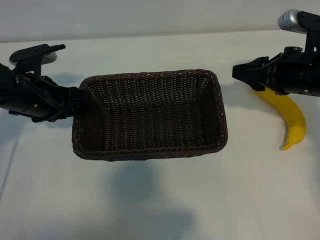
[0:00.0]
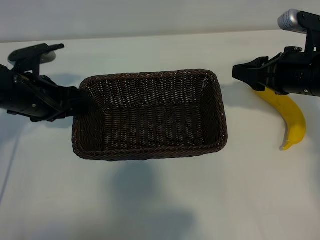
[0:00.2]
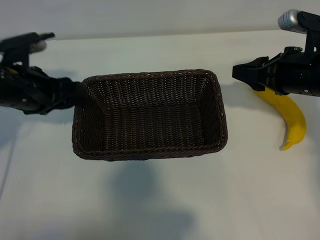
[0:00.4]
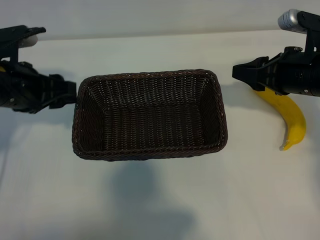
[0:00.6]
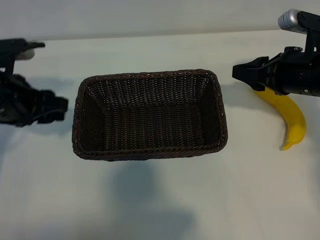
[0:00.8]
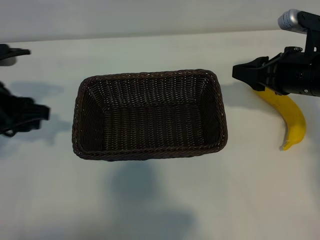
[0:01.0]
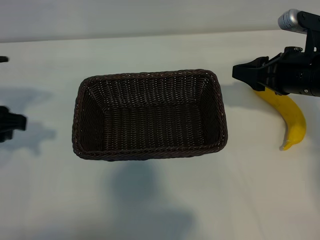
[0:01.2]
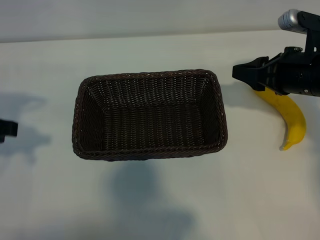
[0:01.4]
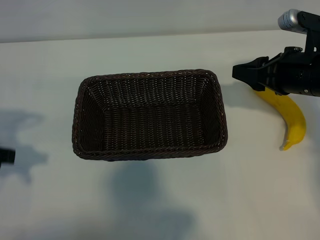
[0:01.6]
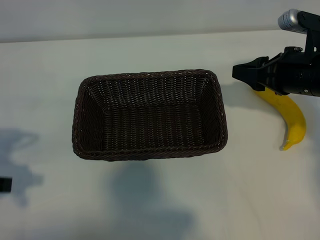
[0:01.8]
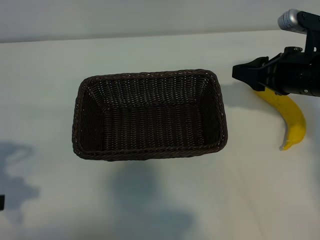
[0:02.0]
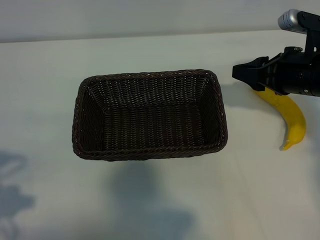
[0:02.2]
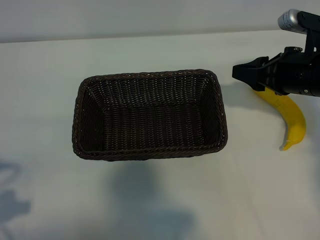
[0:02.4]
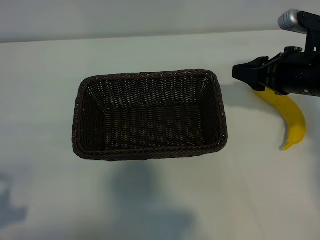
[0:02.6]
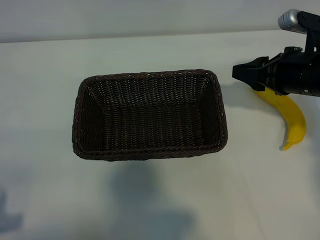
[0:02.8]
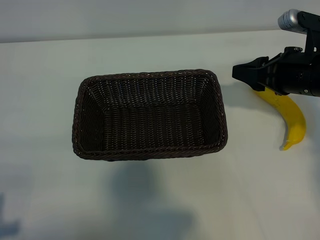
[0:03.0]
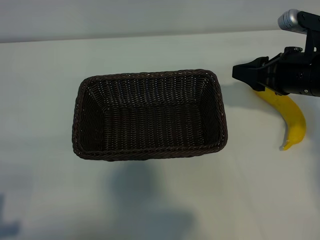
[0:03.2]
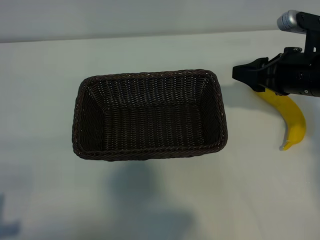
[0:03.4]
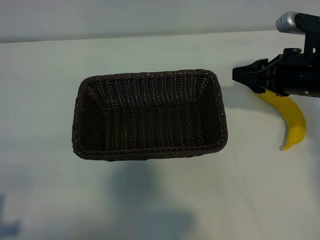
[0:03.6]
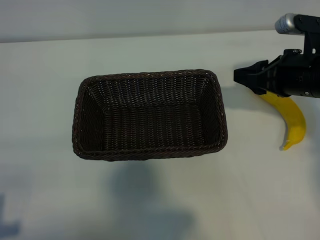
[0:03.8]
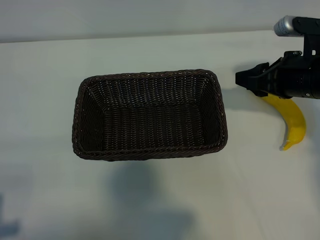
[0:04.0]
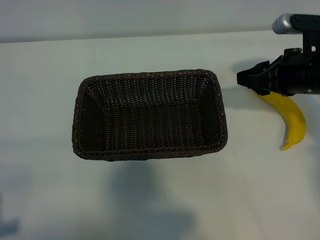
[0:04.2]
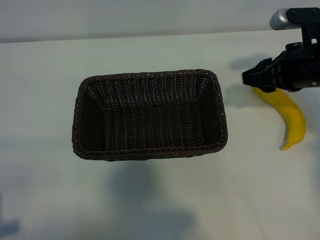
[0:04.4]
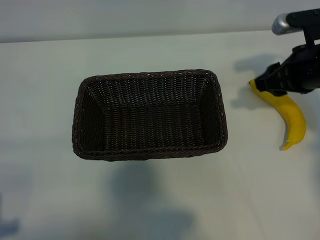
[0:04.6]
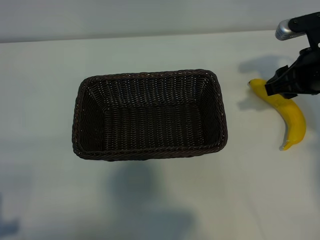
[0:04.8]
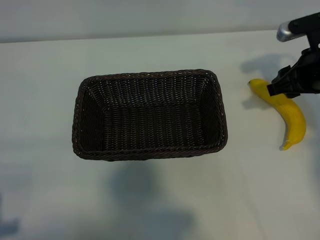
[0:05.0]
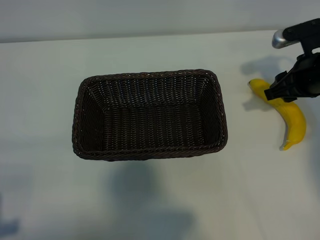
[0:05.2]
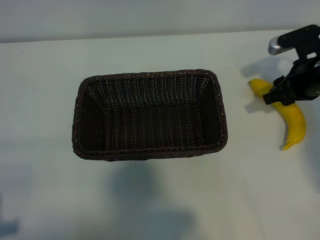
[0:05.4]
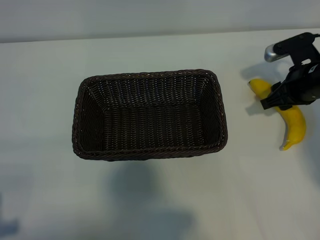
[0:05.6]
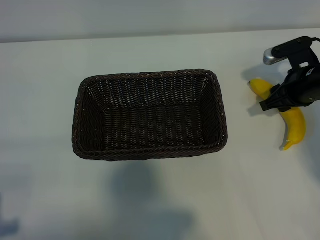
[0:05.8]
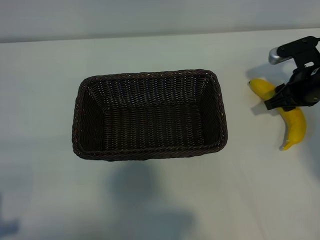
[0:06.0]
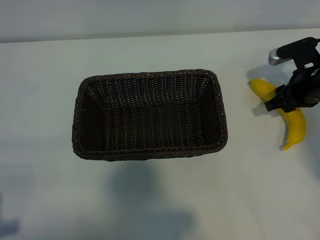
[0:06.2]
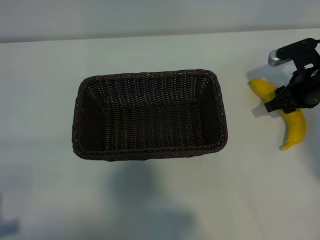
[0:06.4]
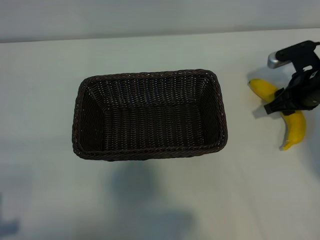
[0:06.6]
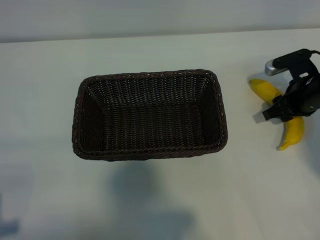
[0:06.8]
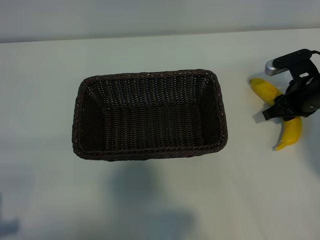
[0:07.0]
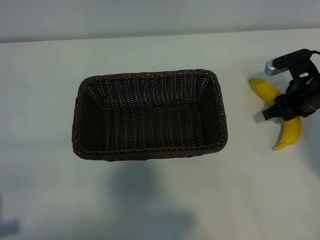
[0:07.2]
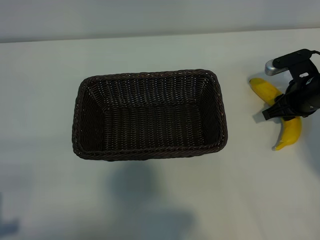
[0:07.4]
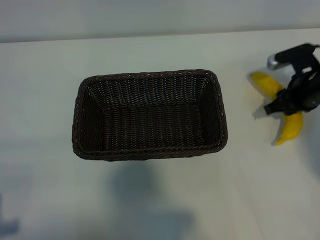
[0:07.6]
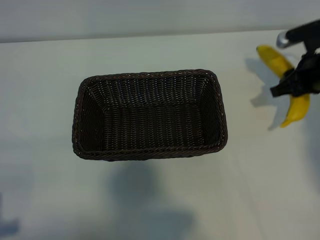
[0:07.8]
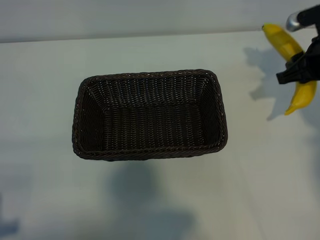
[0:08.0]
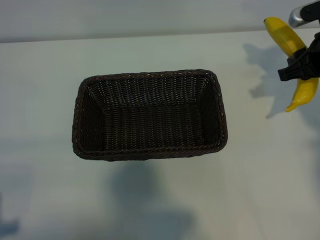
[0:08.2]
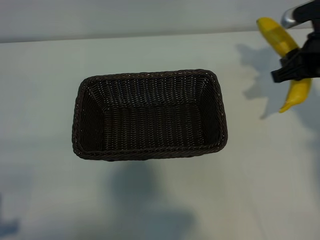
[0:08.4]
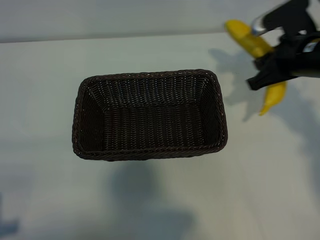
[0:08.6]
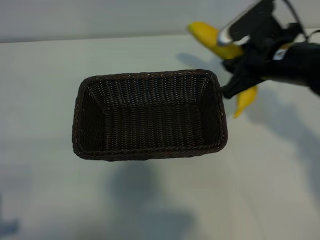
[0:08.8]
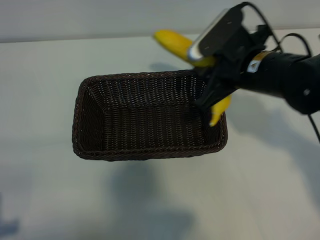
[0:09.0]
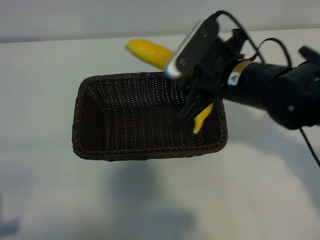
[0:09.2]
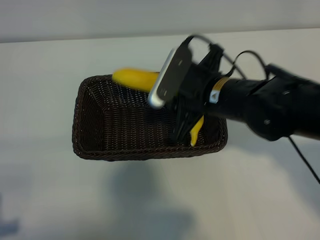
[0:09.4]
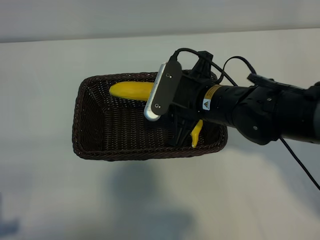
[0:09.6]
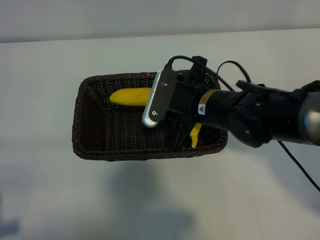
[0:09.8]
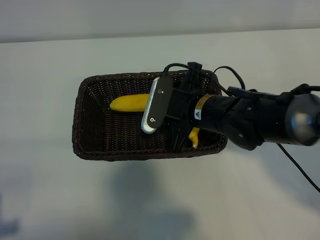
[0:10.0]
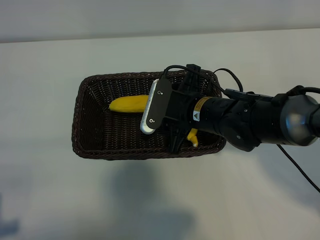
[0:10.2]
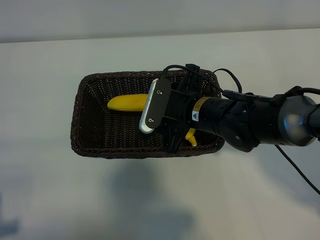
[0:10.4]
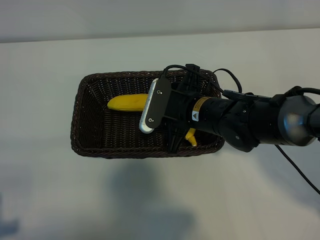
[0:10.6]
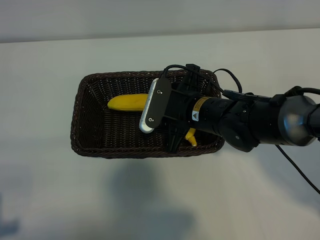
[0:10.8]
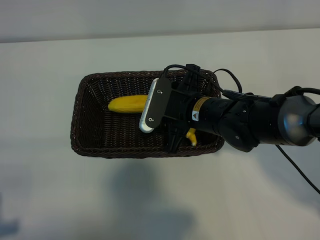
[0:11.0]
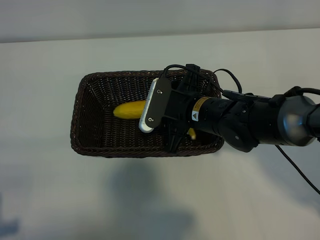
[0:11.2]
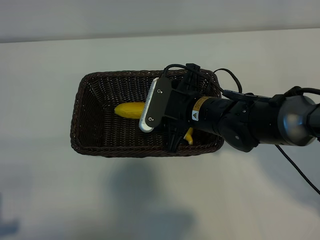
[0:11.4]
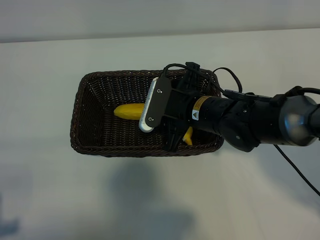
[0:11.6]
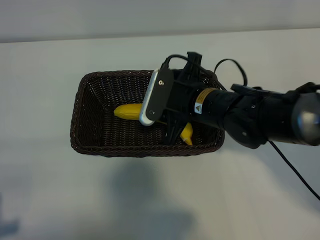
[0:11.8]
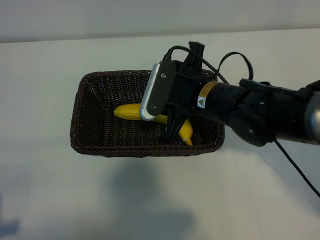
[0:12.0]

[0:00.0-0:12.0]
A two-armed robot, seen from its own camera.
Task of the whole recording: pick up the banana and put it into the basket.
Step, 0:00.8 to 0:07.2: Grasp the banana with right gripper.

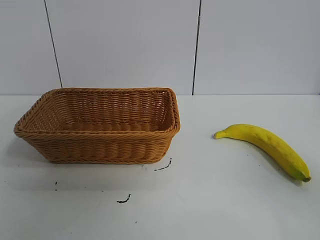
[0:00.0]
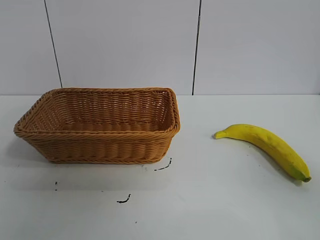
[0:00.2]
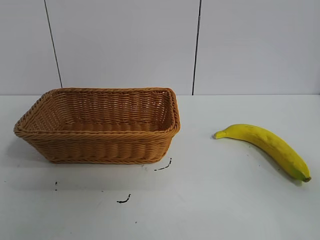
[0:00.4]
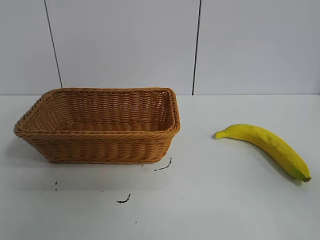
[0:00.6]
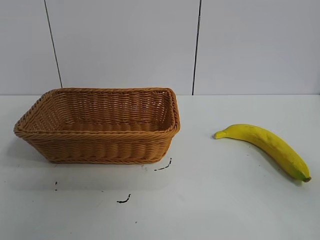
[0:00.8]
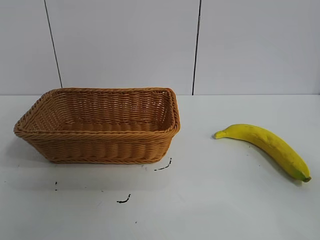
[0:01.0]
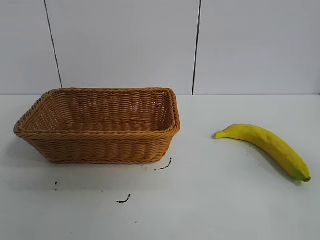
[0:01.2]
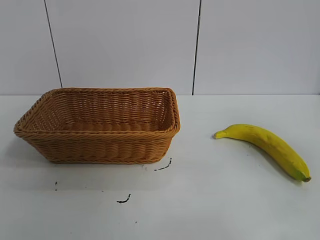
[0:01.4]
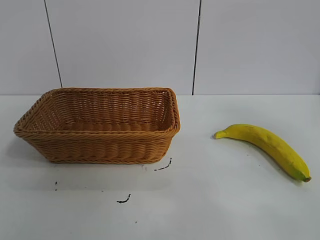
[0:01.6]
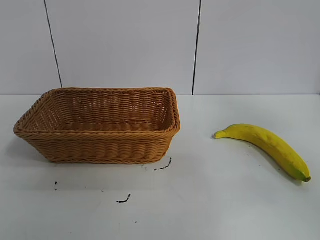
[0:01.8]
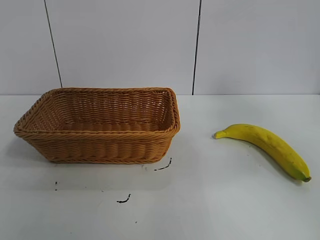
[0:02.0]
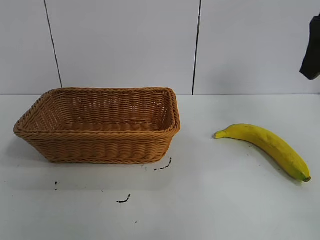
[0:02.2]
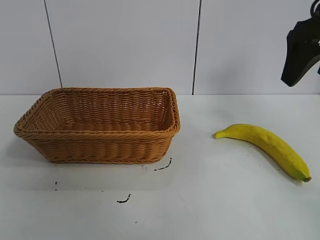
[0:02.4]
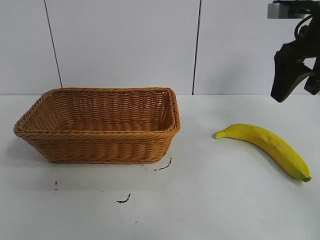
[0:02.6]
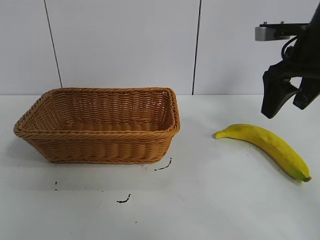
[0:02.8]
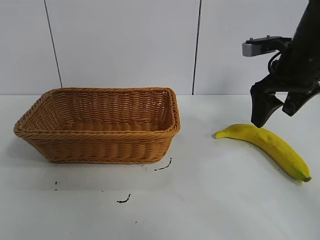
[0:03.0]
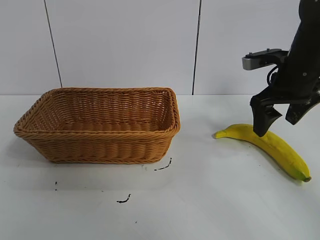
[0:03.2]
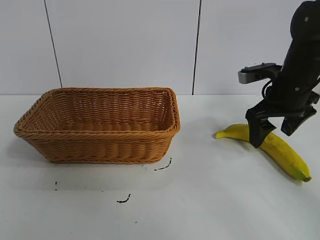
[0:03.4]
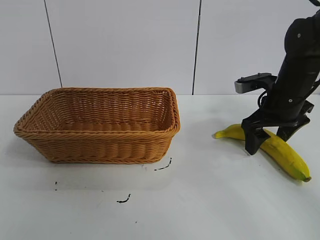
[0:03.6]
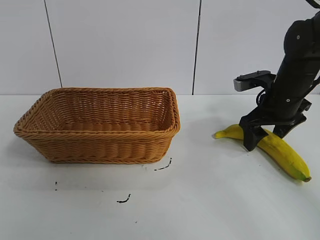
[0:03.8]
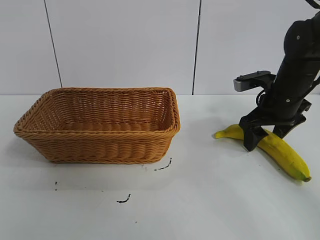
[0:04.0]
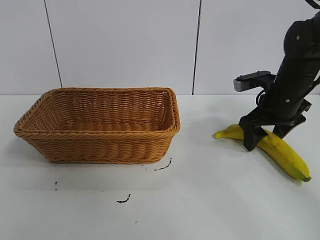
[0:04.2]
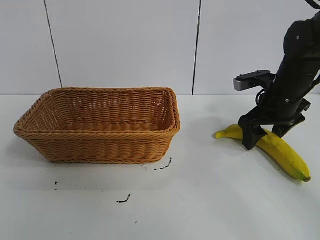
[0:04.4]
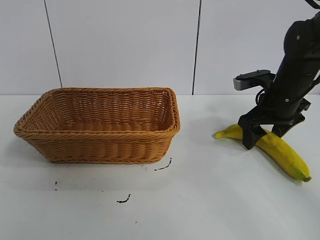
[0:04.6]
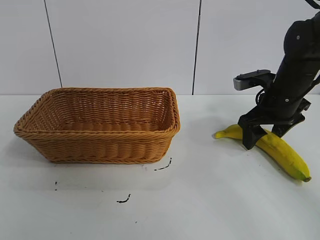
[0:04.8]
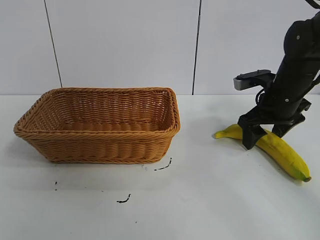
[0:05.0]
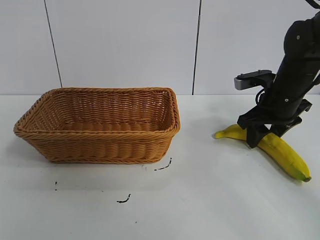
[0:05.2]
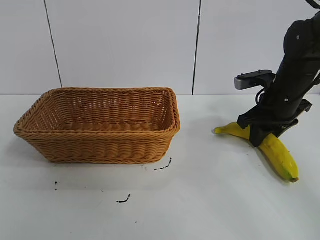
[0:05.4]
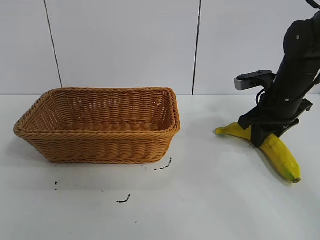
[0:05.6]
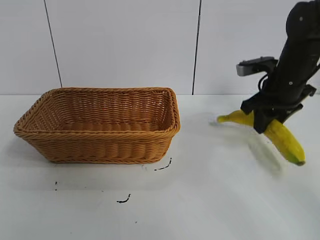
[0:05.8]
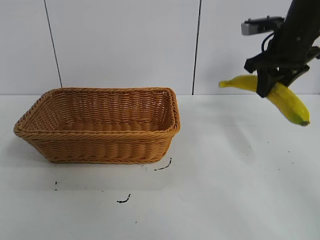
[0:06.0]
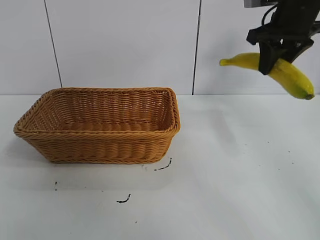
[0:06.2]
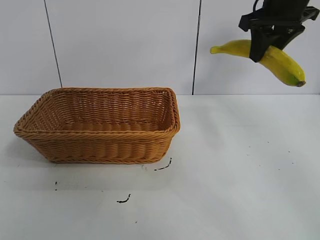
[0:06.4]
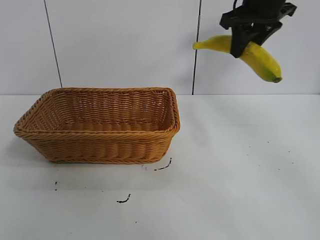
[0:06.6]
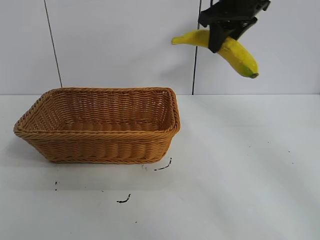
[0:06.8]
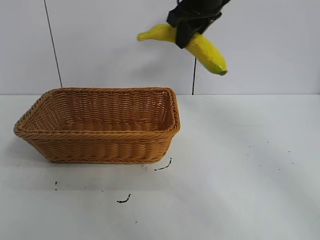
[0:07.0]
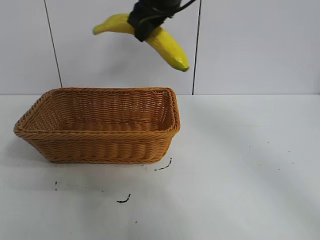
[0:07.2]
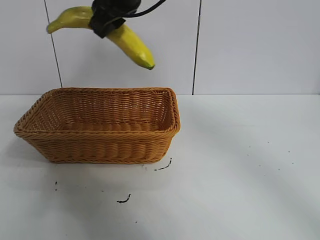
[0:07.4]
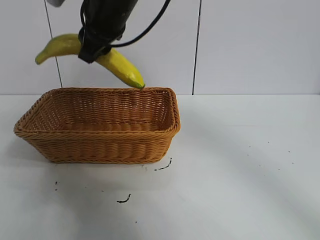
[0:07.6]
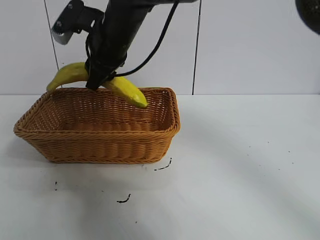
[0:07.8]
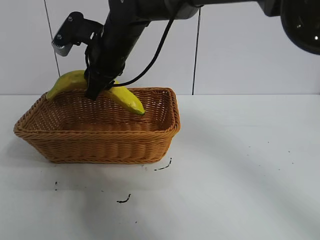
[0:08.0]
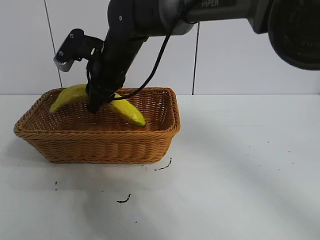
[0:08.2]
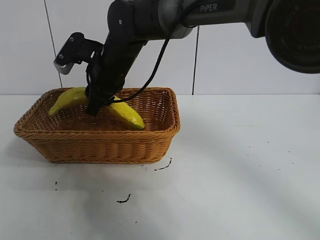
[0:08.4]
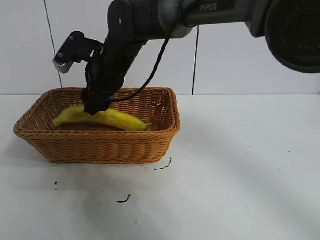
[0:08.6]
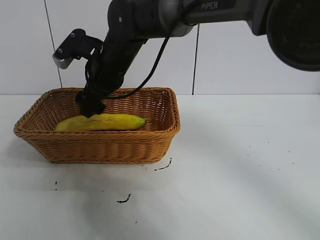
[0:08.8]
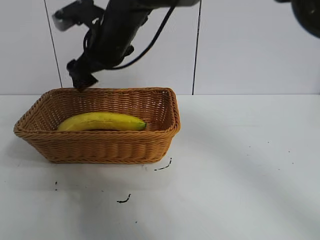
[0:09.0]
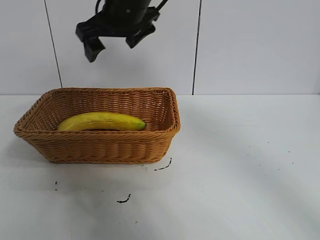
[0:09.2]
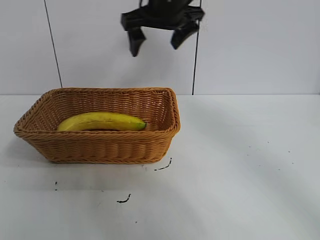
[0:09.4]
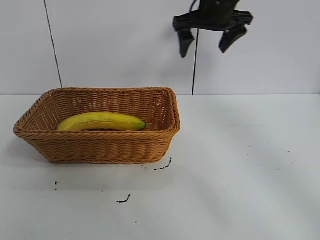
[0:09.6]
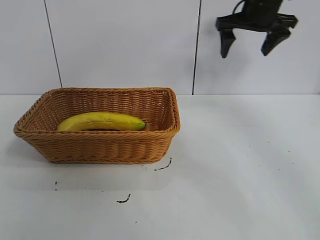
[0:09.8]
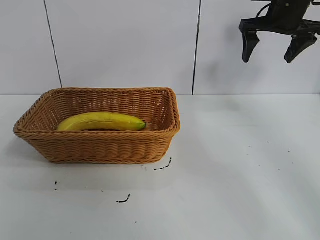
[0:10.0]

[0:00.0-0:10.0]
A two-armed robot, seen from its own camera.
Task of the whole recording: pick up the banana and put it into the basket.
Step, 0:00.8 to 0:05.2: Grasp the banana with right gripper.
Step, 0:05.6 to 0:08.8: Place the banana in the basket with right gripper.
